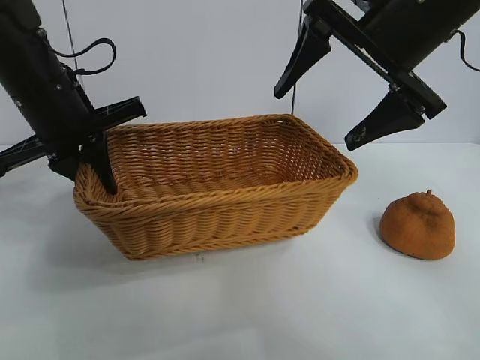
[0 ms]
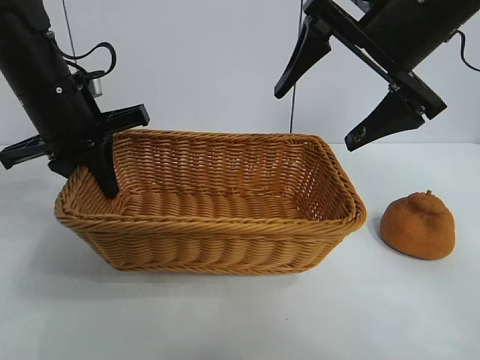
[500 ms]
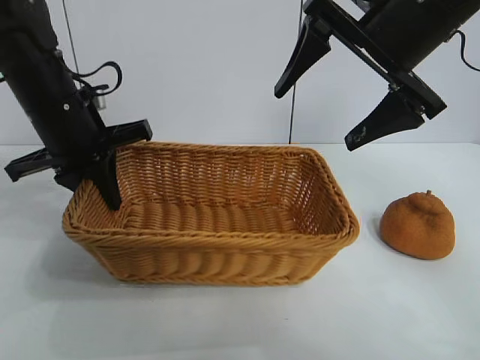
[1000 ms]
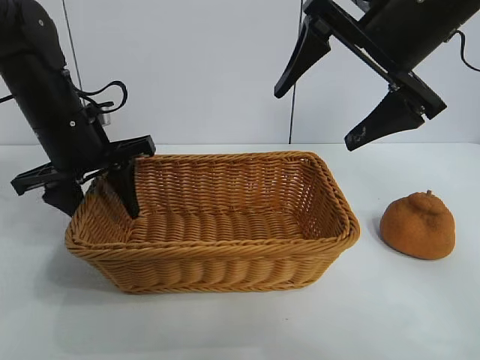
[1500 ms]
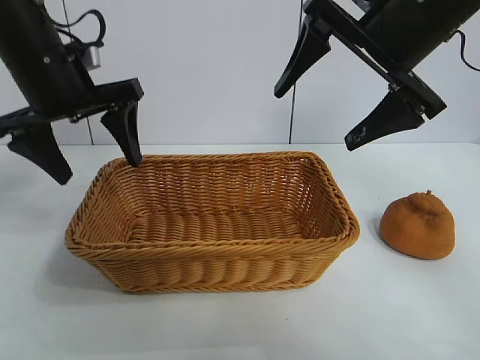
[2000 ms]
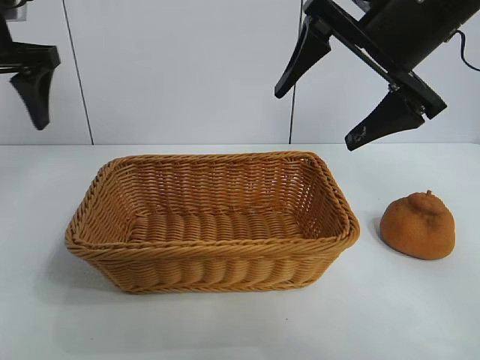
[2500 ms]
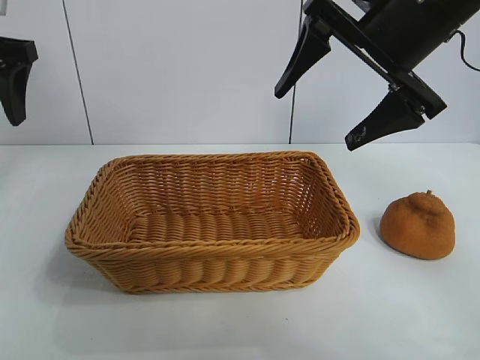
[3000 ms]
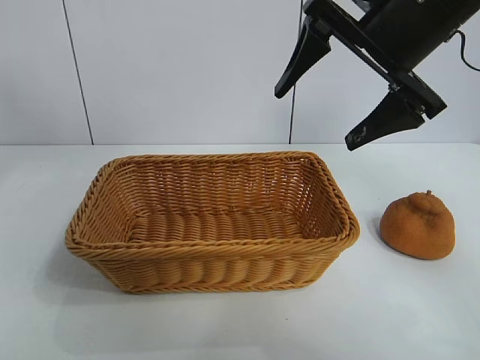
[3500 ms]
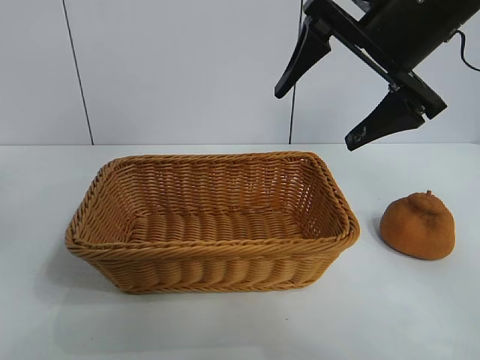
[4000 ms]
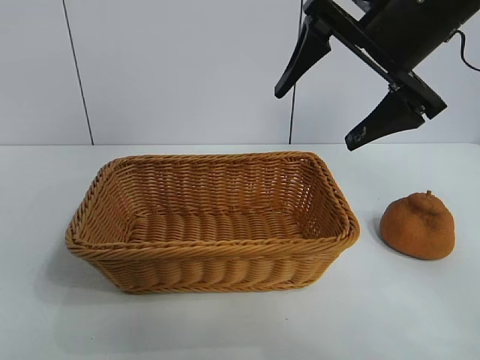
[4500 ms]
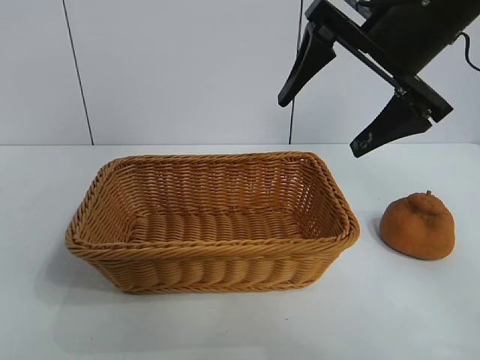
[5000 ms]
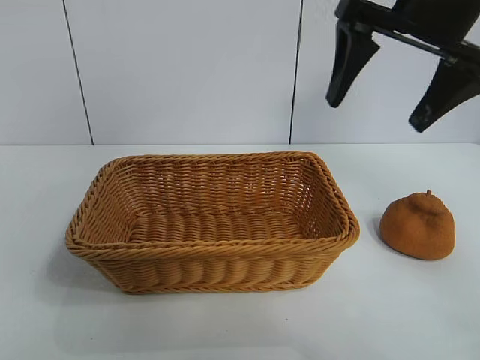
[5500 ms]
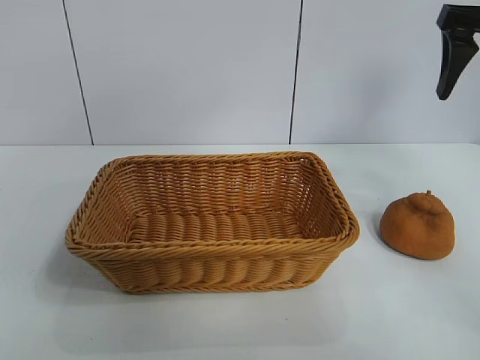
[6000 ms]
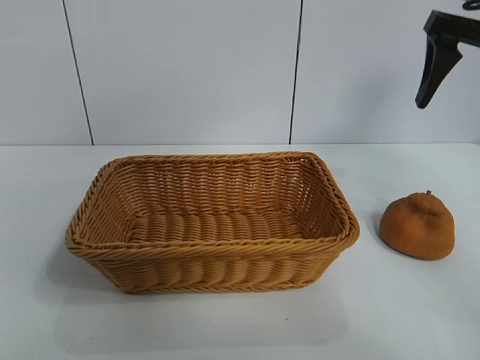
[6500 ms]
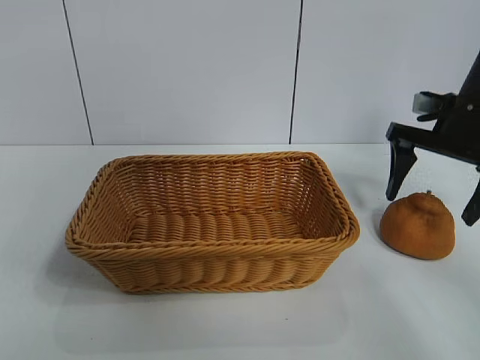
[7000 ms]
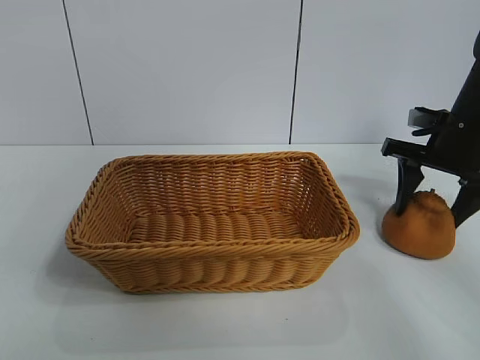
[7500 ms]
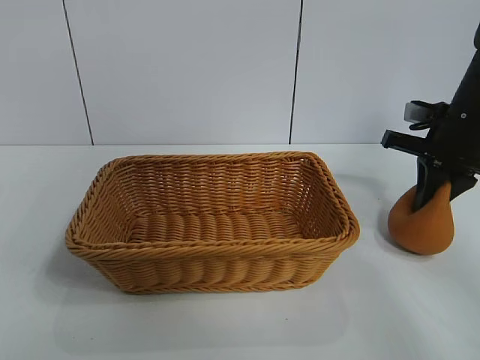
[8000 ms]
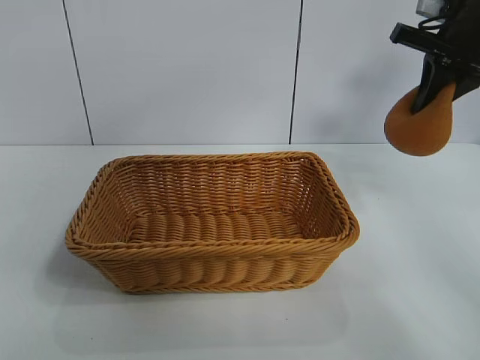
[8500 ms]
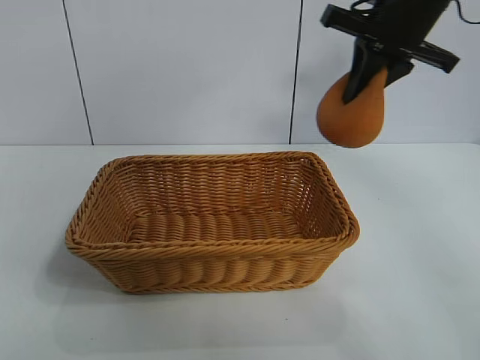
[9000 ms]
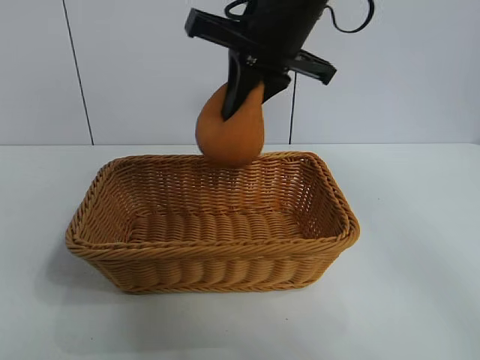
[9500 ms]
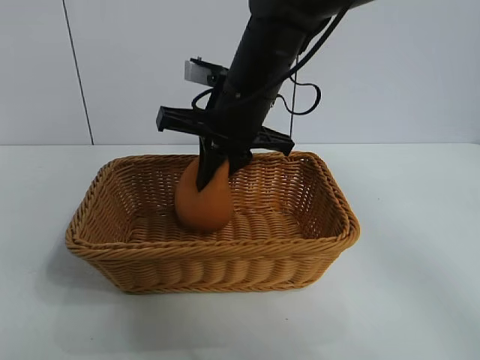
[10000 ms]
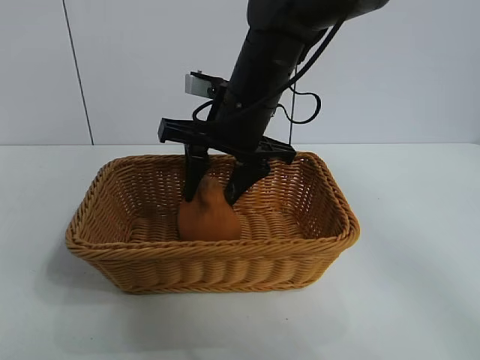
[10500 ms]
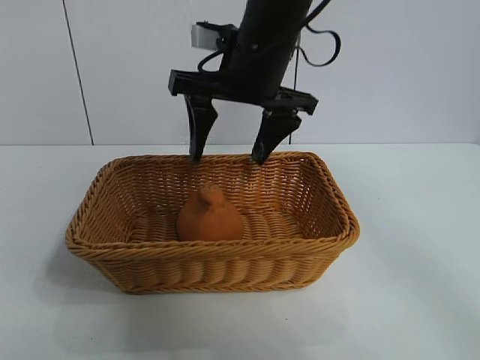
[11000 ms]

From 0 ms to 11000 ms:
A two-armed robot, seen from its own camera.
Task of the whole recording: pick up the orange and put it into the basket.
Step, from 0 ms to 1500 ms: Place the basket in the center of view with left gripper.
Step, from 2000 ms to 8000 ms: Grasp the orange with right gripper.
Step, from 8500 ms to 10500 ms: Place the orange in the basket with right gripper.
